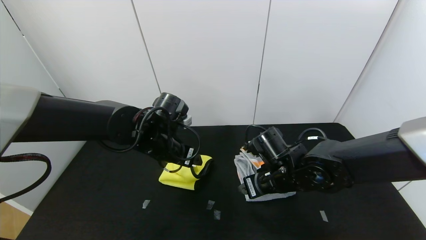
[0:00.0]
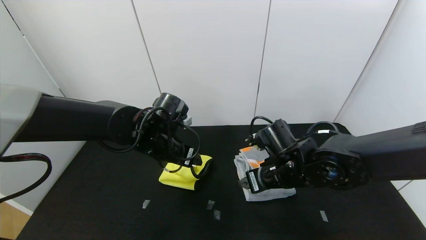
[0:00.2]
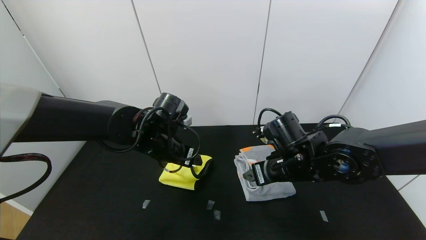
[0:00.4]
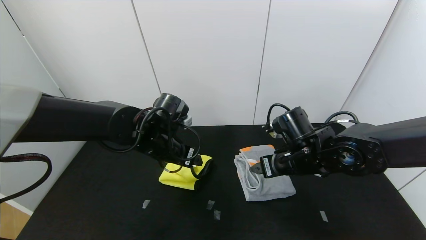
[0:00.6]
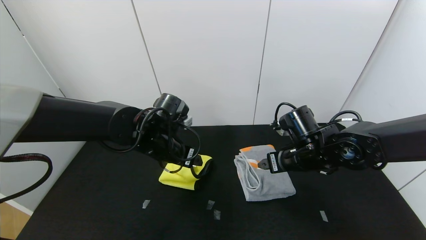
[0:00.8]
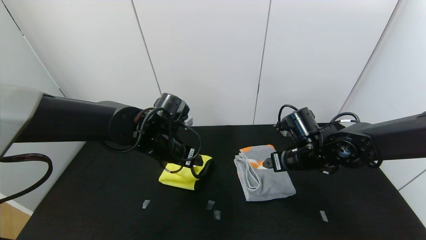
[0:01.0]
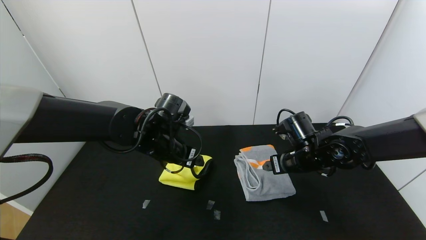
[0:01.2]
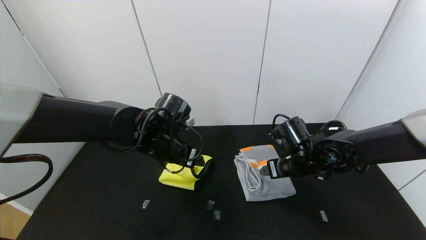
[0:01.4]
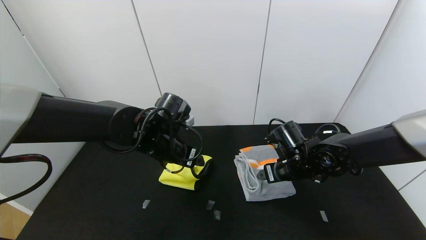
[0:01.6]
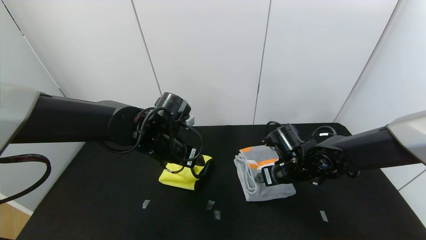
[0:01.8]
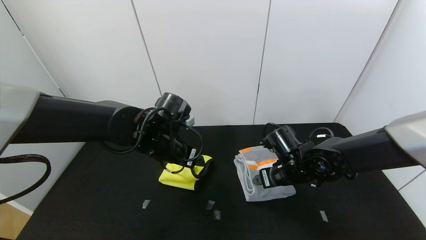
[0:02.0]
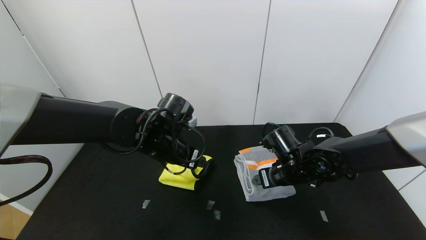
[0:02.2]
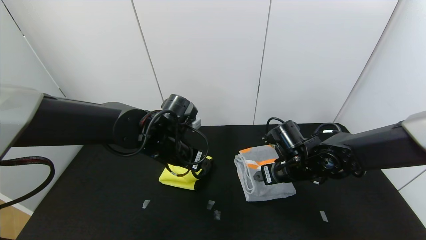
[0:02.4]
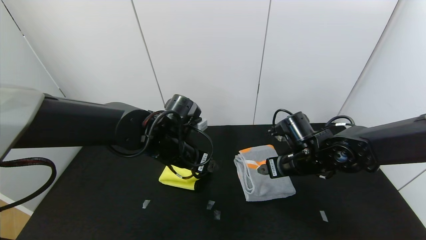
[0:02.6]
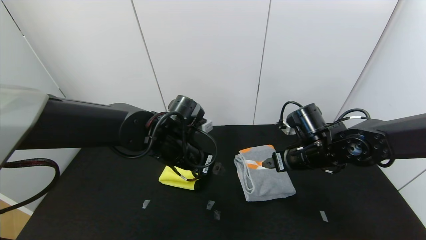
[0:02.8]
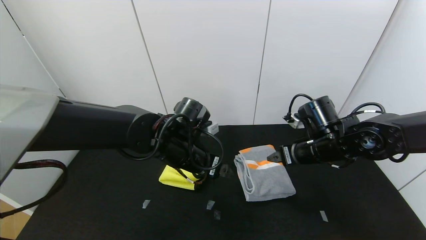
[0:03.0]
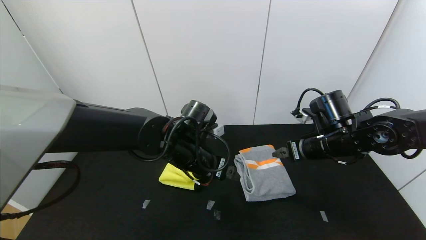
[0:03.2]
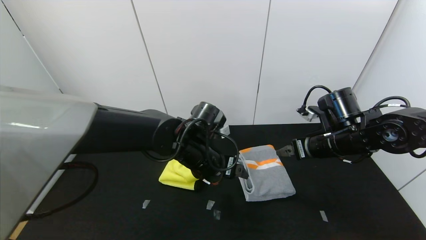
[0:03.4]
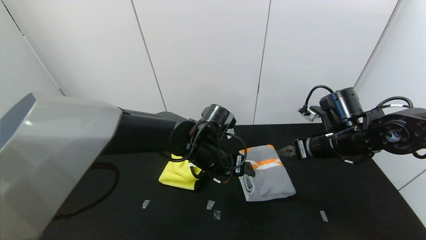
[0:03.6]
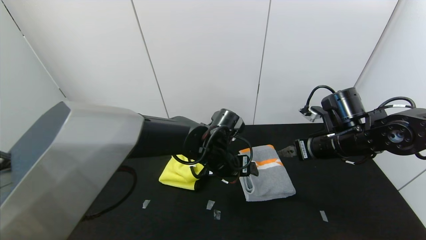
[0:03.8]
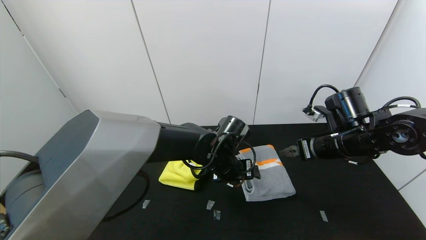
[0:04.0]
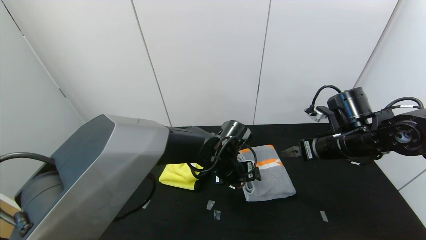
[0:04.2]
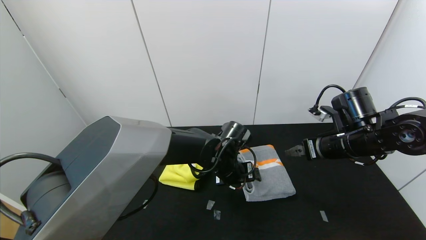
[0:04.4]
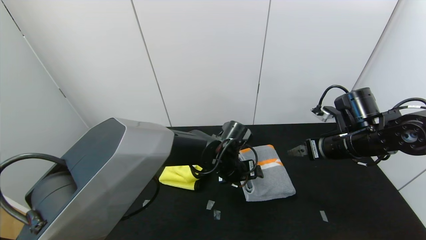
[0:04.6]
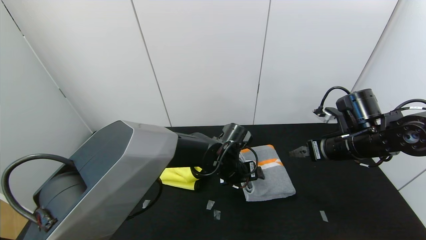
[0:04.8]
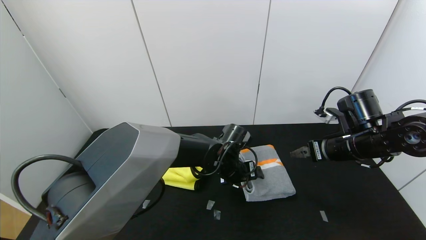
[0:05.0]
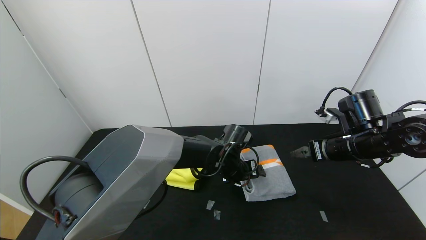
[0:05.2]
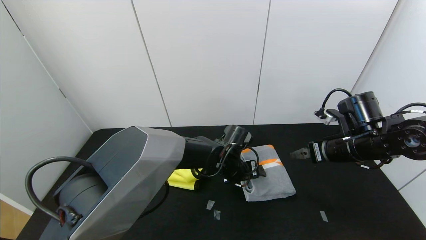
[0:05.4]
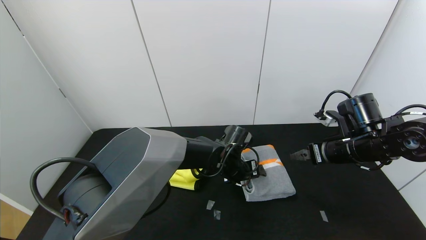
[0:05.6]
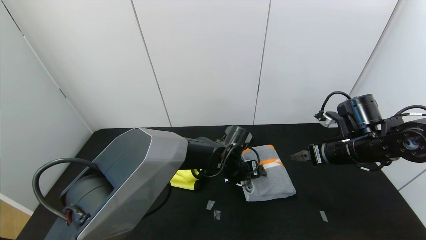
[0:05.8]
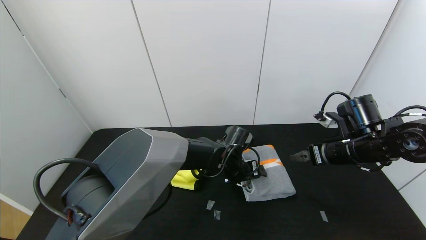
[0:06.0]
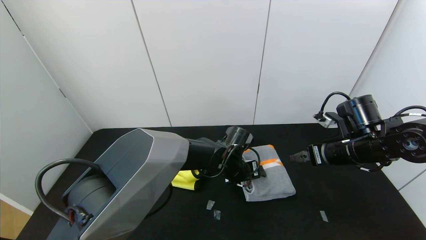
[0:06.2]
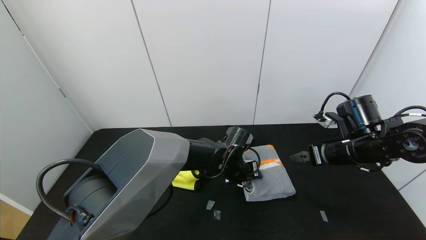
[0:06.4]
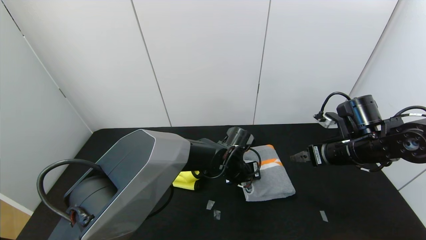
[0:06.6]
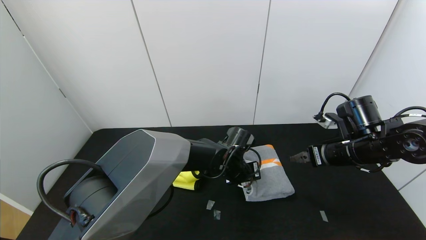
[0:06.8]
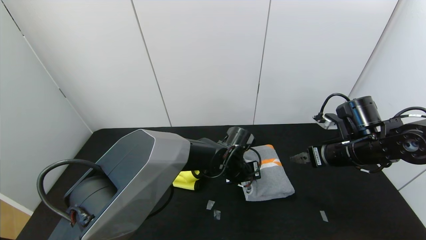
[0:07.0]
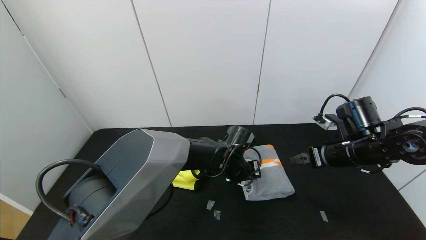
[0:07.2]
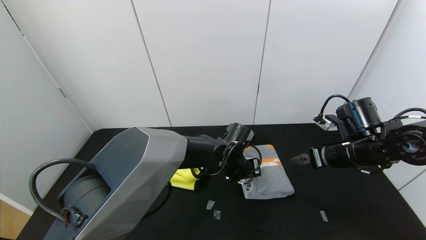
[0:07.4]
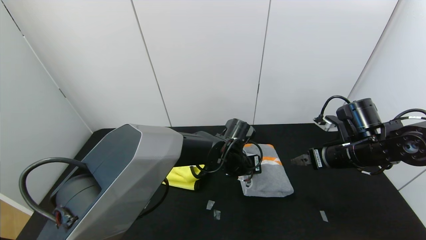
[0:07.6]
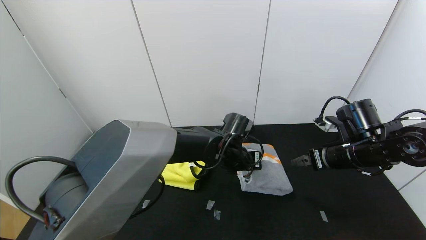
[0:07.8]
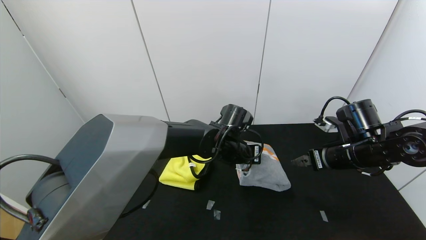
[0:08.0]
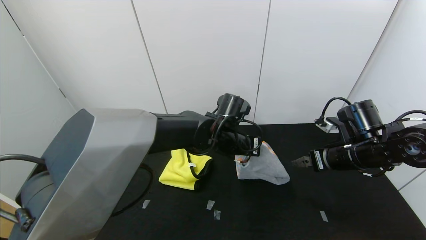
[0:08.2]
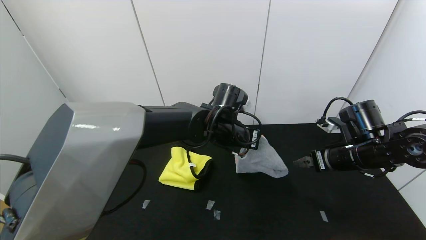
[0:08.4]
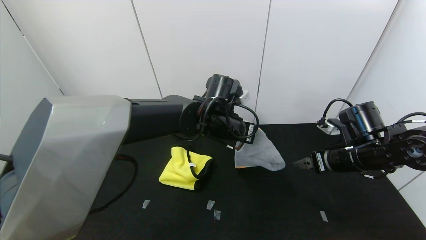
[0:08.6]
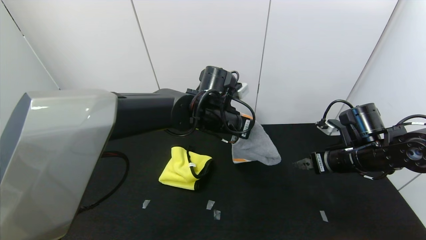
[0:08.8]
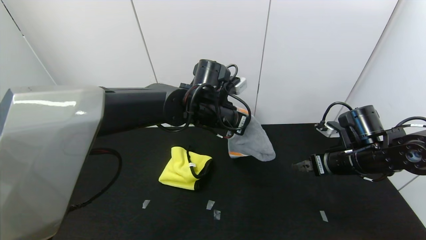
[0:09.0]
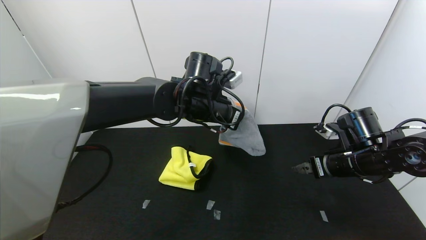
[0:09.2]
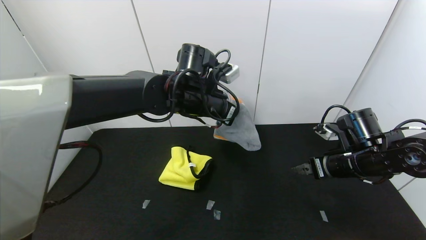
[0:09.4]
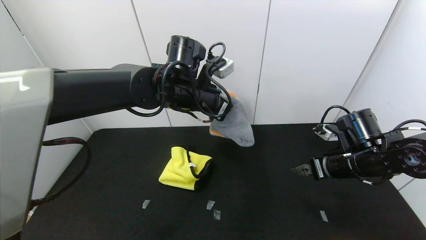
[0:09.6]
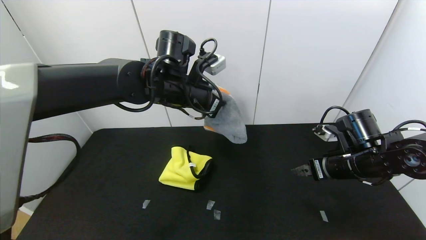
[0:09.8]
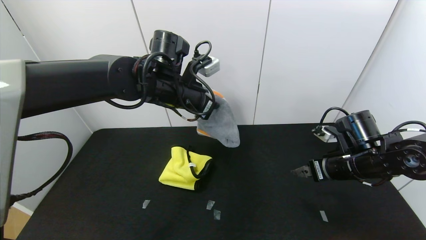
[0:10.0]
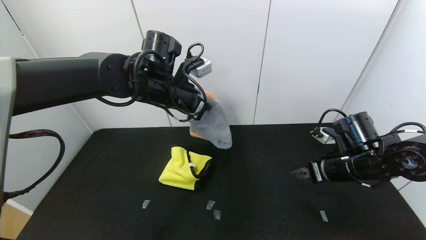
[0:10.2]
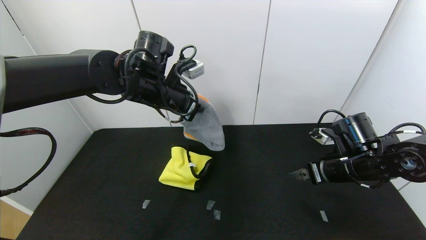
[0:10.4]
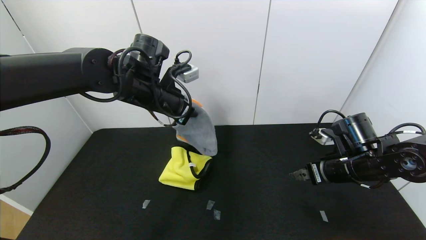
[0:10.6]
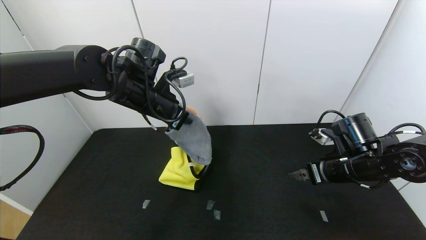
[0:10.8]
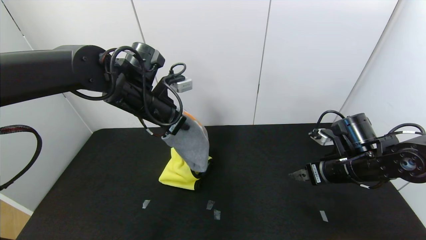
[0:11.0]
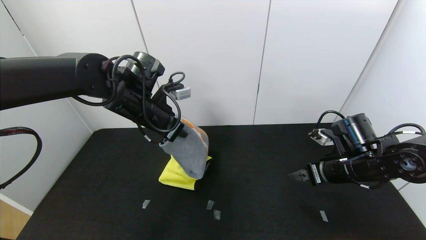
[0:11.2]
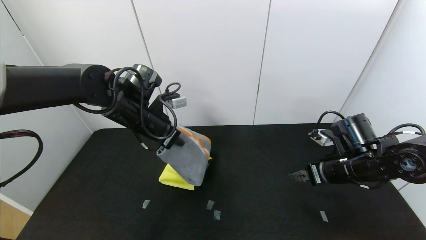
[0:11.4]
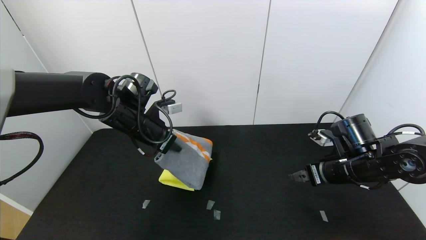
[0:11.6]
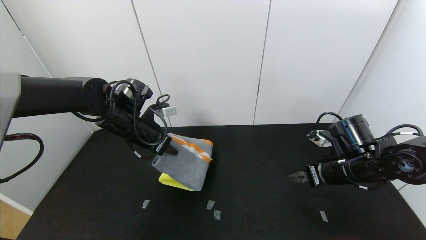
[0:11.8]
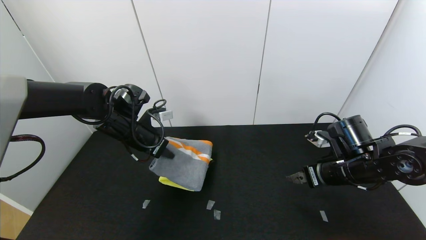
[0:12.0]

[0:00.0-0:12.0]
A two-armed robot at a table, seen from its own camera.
Task of the whole recording: Use the gripper to fold the yellow towel and grey towel in half twice,then put the yellow towel on the grey towel.
Step, 0:00.0 to 0:02.4: Fold the gray towel from right to left with right gripper.
0:00.0 to 0:01.6: The right gripper moves approximately 5 cm.
0:01.6 to 0:03.0: The right gripper shifts roughly 5 cm upward. The left gripper ends up roughly 5 cm from where it was.
0:03.0 to 0:04.4: The right gripper moves roughly 5 cm; the left gripper travels to the right and downward by roughly 10 cm.
0:04.4 to 0:06.0: The grippers make only small movements.
0:06.0 to 0:07.6: The left gripper closes up.
0:07.6 to 0:09.0: The left gripper shifts roughly 15 cm upward.
0:09.0 to 0:10.4: The left gripper goes some 10 cm to the left.
0:10.4 to 0:12.0: The left gripper moves downward and to the left, approximately 15 cm.

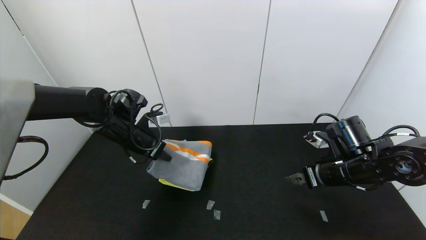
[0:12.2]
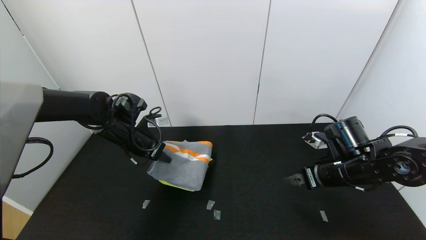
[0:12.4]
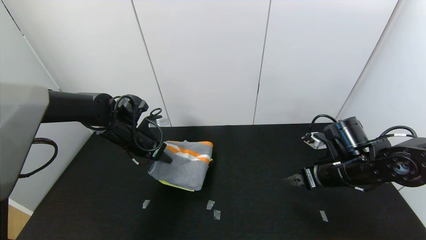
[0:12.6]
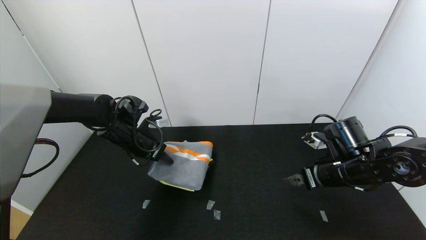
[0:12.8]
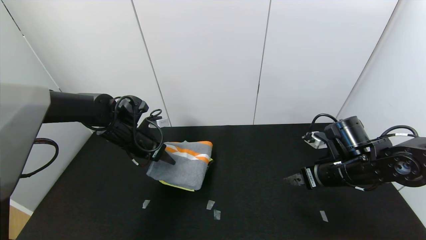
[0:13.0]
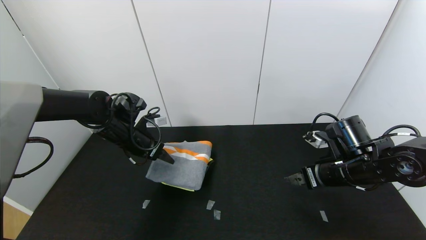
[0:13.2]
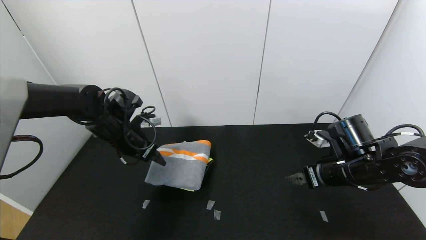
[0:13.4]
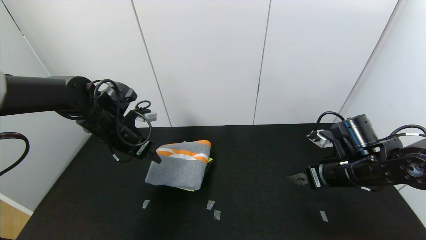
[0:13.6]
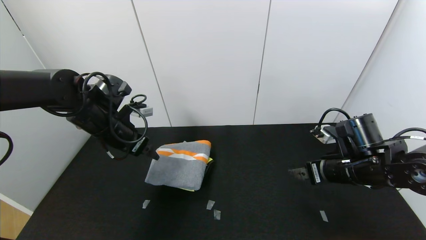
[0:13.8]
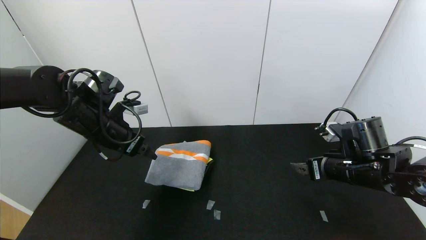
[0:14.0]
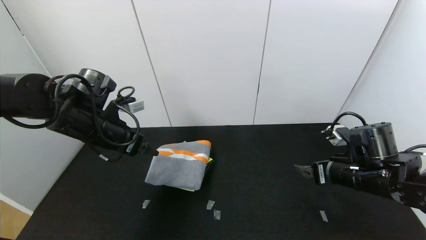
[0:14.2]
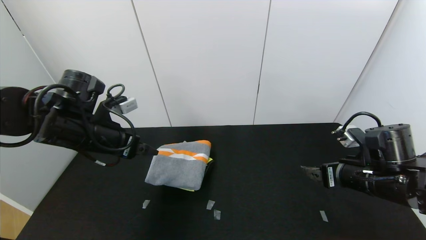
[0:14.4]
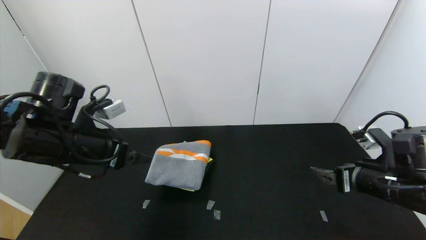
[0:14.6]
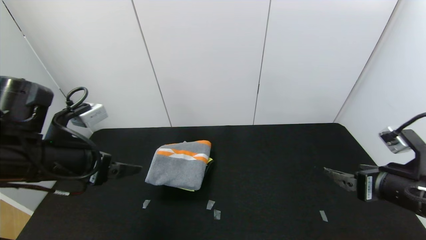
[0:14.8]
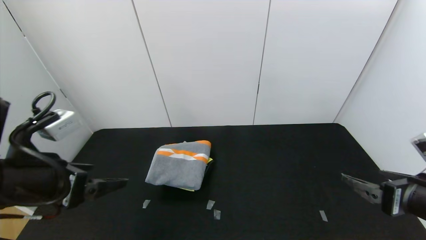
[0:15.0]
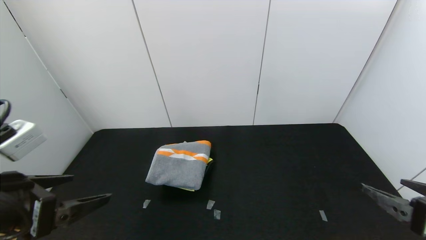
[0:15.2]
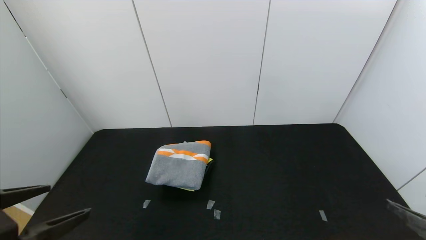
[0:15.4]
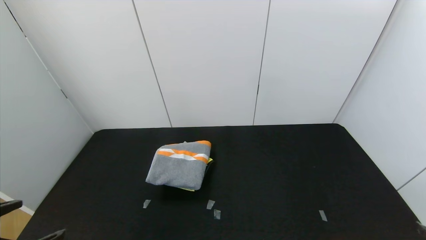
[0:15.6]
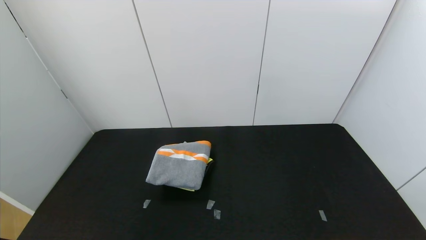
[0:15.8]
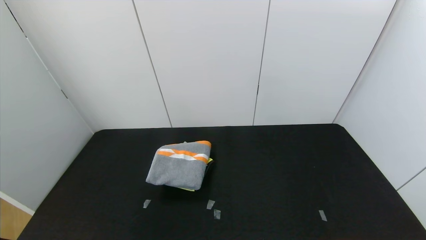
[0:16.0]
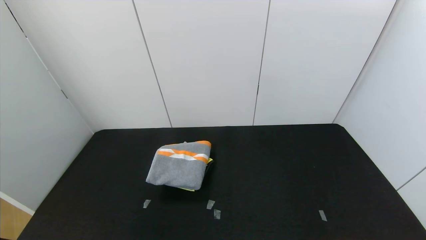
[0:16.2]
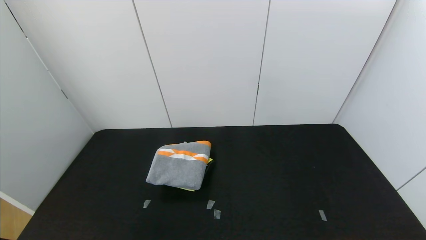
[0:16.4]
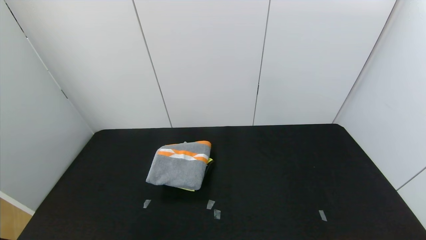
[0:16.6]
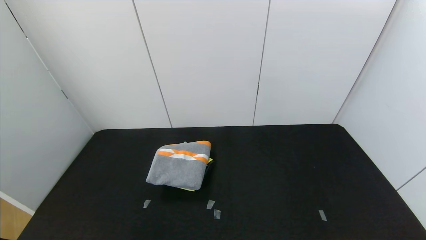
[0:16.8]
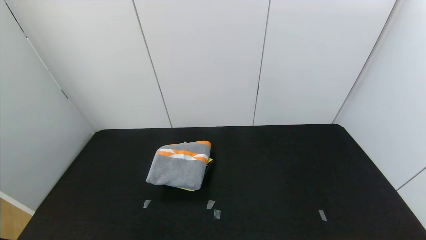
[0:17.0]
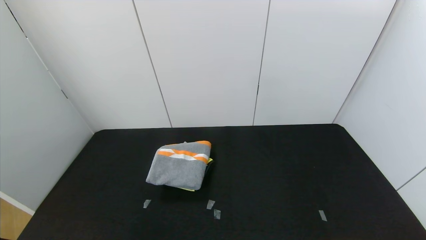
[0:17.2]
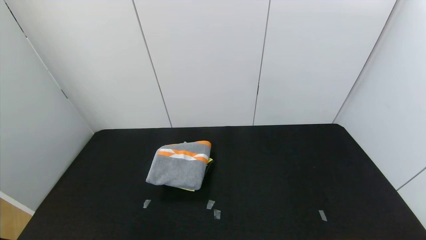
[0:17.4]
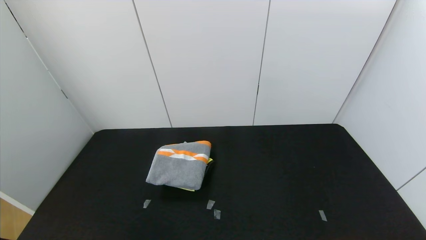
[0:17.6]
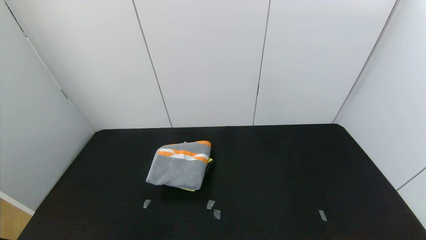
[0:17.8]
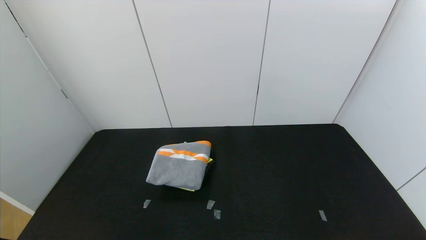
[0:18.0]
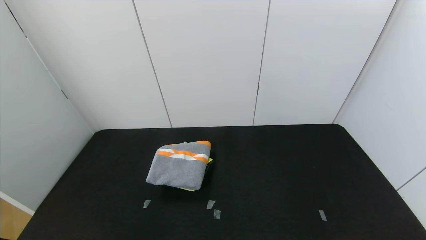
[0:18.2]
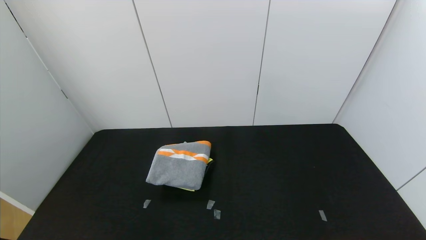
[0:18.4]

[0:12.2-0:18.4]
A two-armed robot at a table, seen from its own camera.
Task of the whole recording: Use the gripper to fold the yellow towel and grey towel in half twice,then put the yellow towel on the grey towel.
0:12.2 to 0:13.8: The left gripper changes place by roughly 5 cm, and opens.
0:13.8 to 0:15.4: Both grippers move backward, approximately 25 cm.
0:15.4 to 0:16.8: The two grippers go approximately 15 cm backward.
